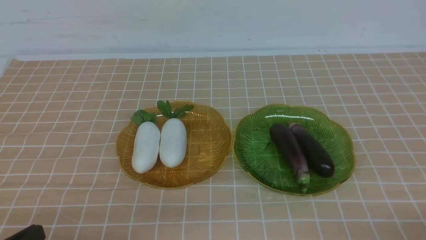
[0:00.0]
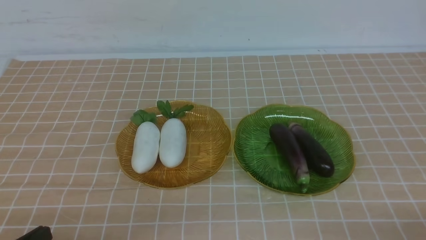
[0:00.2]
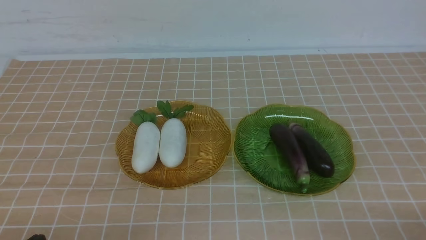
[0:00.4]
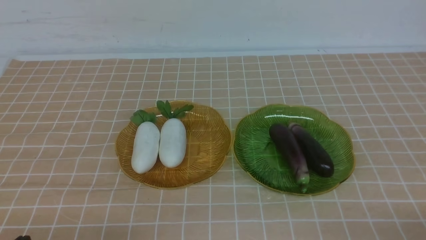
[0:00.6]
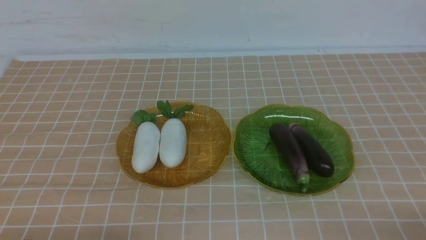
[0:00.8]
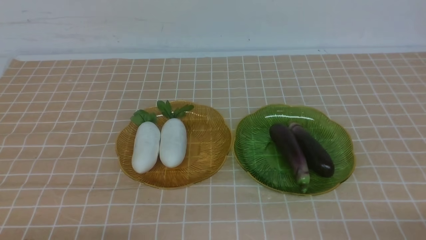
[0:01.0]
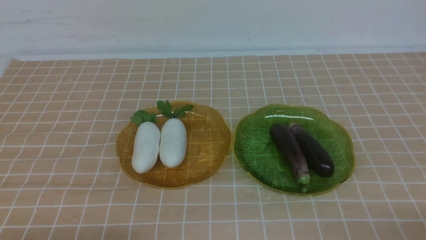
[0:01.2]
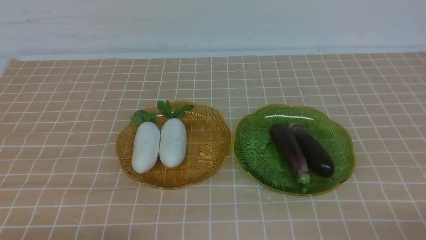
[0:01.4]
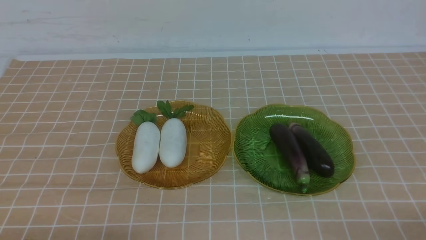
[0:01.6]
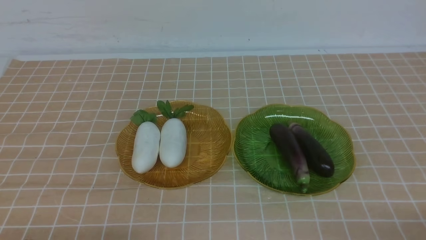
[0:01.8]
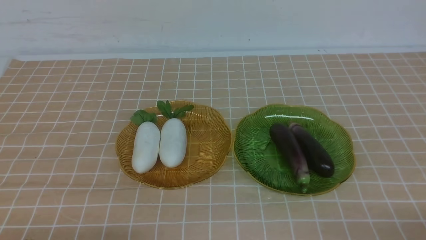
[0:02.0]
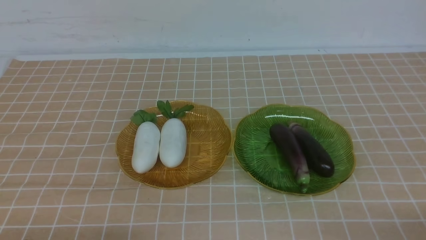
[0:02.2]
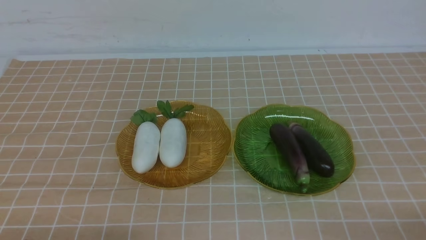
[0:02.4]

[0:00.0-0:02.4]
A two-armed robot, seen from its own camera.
0:01.2 to 0:02.4: Both grippers stay about where they are.
